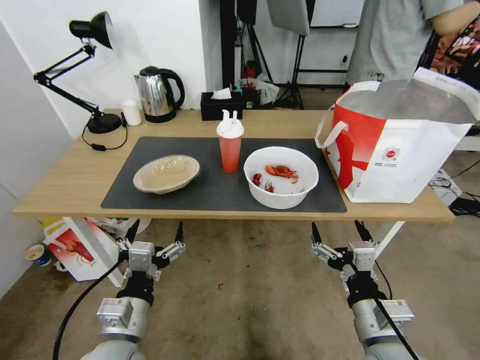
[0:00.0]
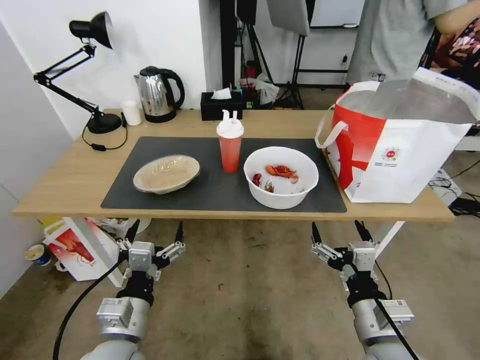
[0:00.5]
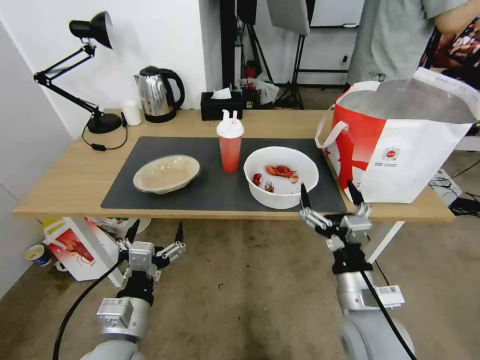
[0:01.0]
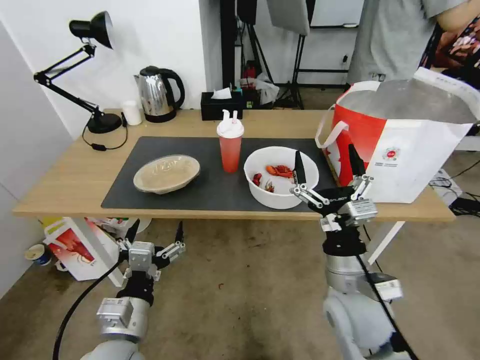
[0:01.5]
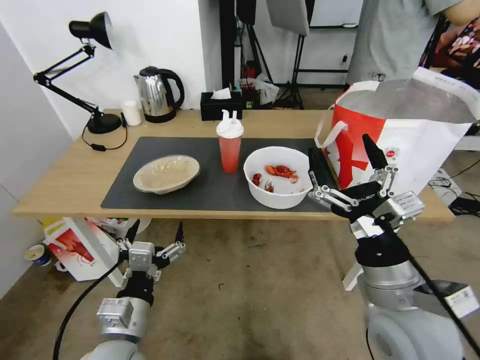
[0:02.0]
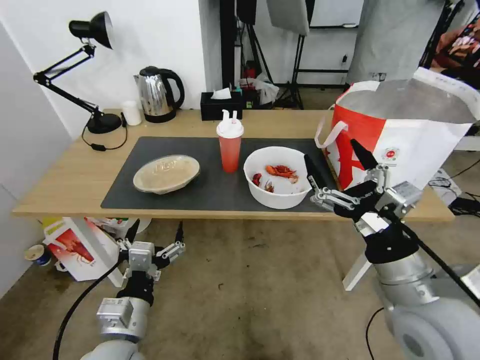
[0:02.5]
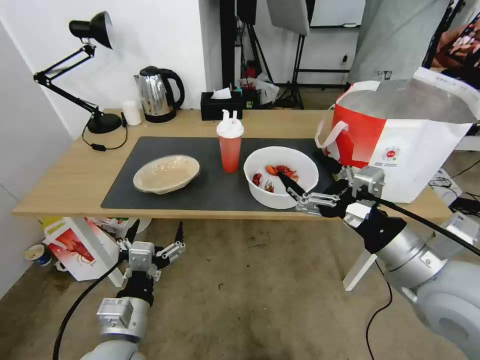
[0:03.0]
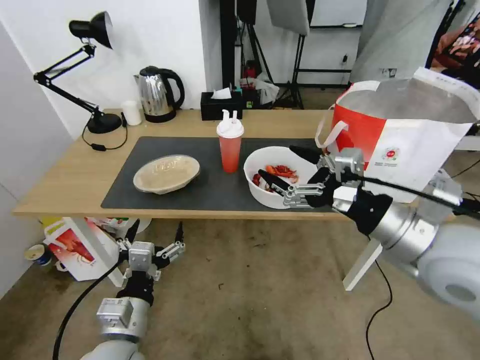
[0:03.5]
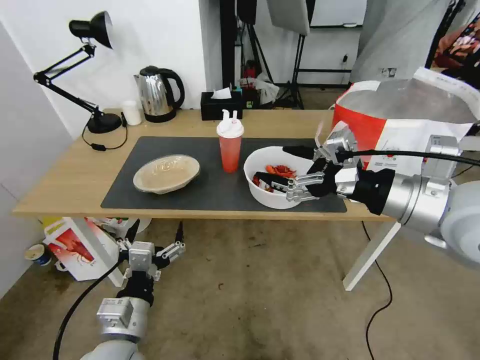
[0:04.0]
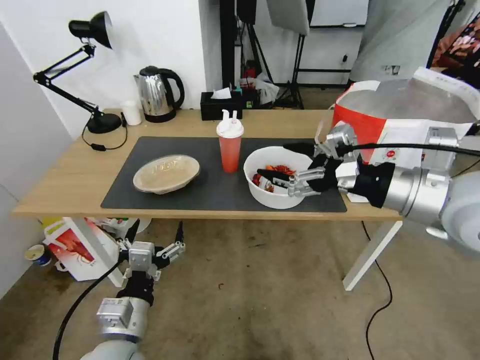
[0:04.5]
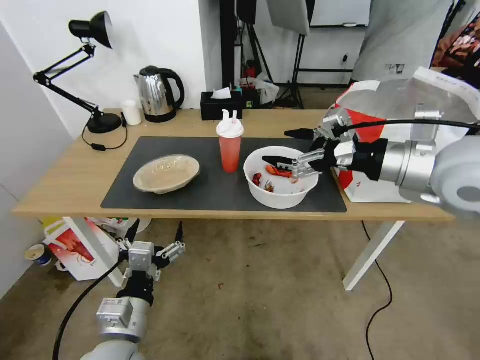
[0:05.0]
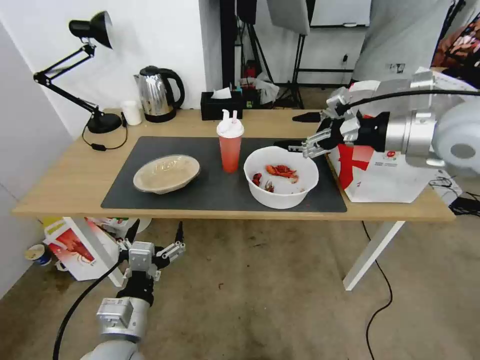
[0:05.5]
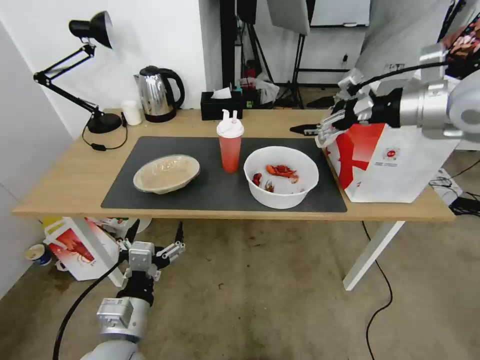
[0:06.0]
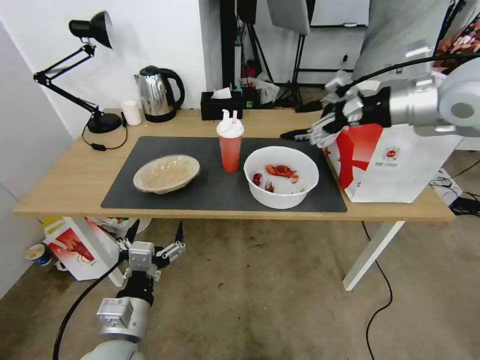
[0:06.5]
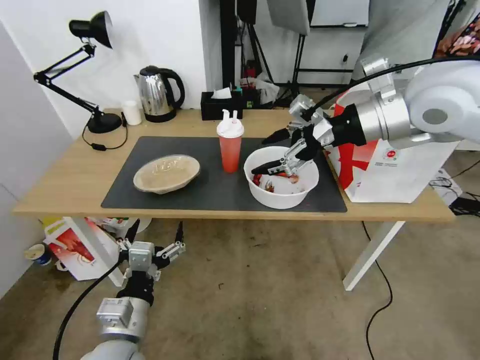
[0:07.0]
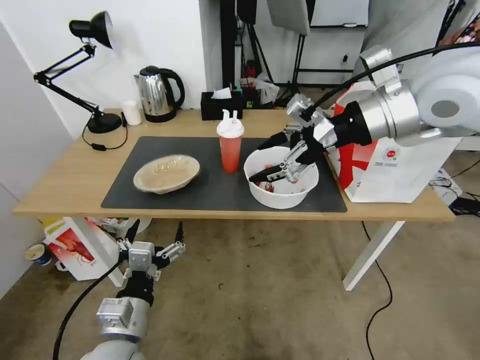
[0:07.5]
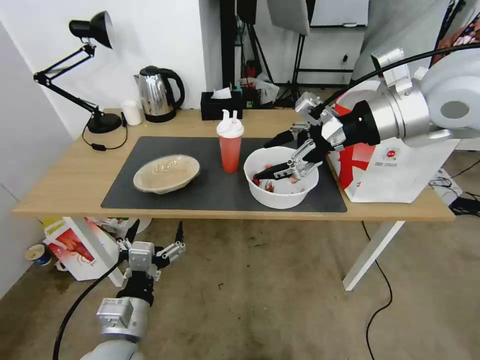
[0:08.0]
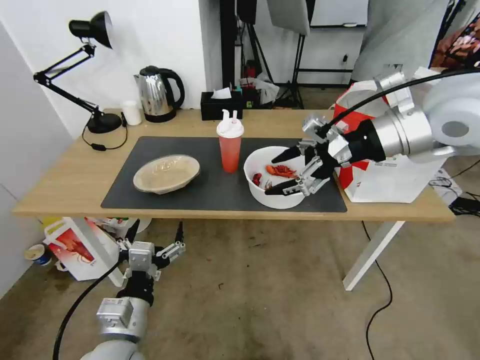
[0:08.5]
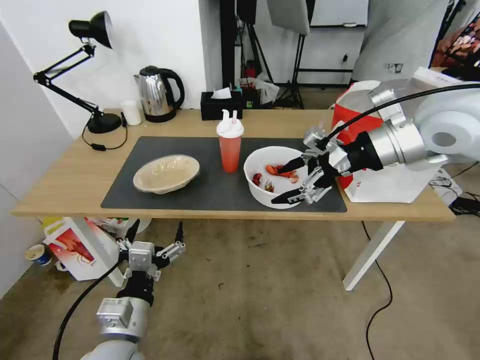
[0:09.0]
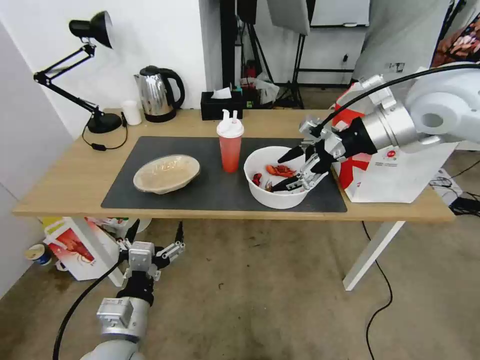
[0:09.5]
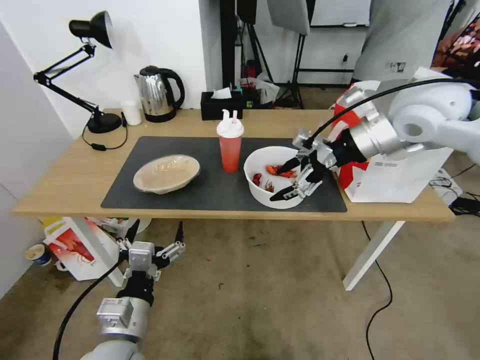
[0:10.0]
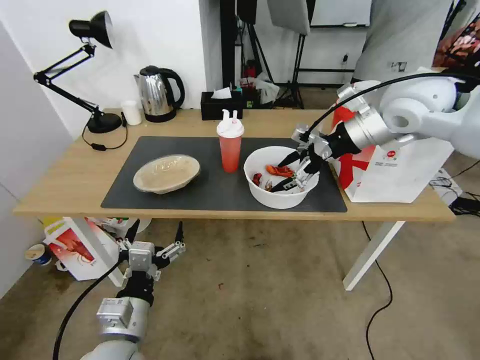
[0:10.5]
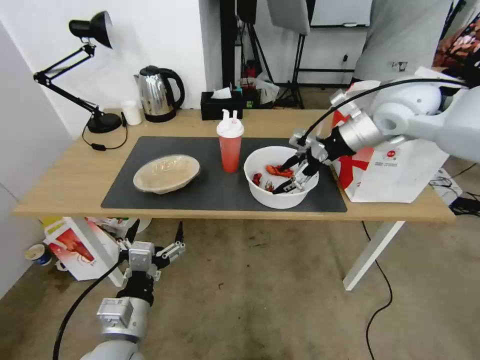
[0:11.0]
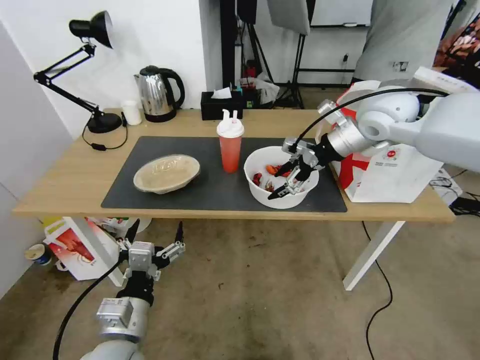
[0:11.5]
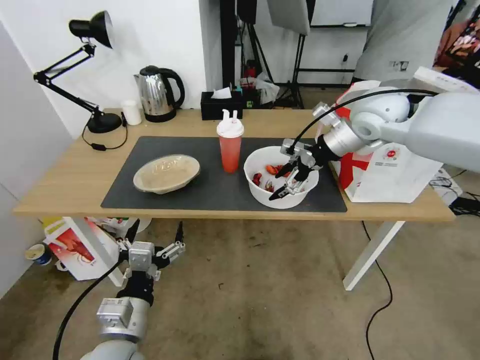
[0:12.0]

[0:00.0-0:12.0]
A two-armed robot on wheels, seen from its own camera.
Task of the whole recording: Pick up the trash from the table and place it into the takeout bag.
2.0 to 4.0 s: The right gripper travels upward and forward by about 15 cm.
4.0 to 6.0 s: The right gripper travels forward, upward and to the right by some 20 cm.
6.0 to 8.0 s: The right gripper moves to the left, approximately 10 cm.
8.0 to 10.0 s: The right gripper moves about 5 cm.
10.0 to 12.0 s: The right gripper shifts about 10 cm forward and downward.

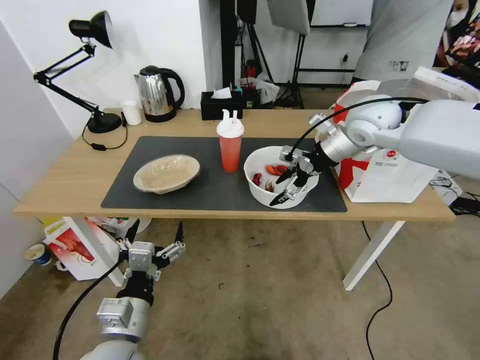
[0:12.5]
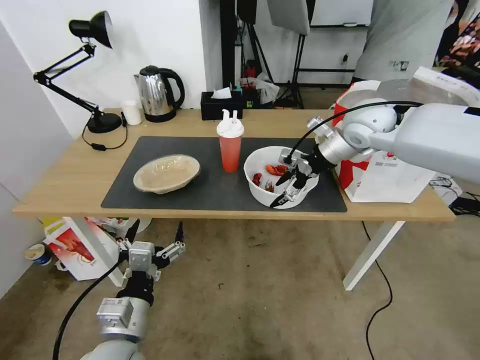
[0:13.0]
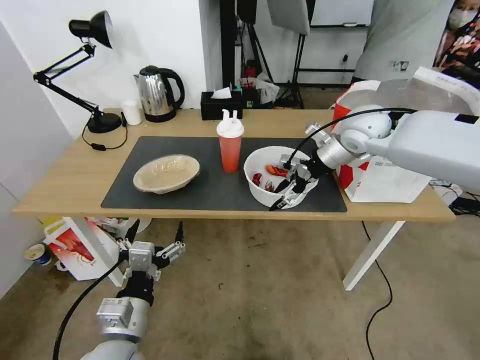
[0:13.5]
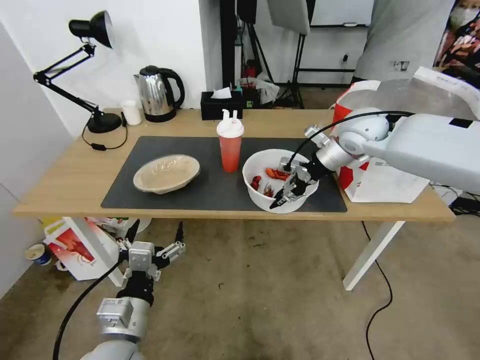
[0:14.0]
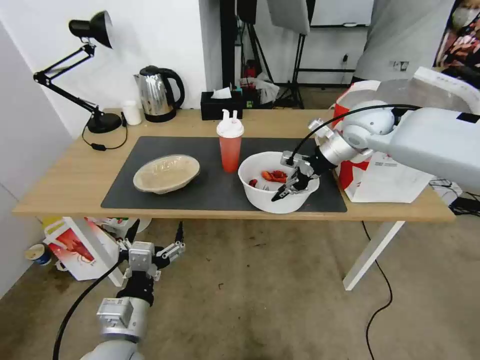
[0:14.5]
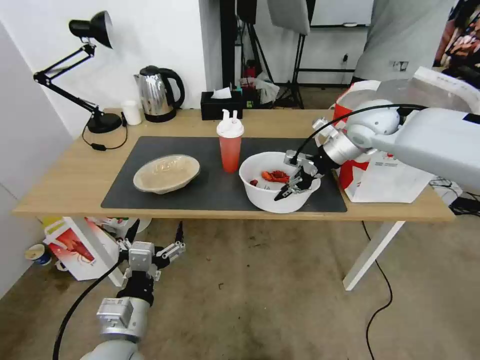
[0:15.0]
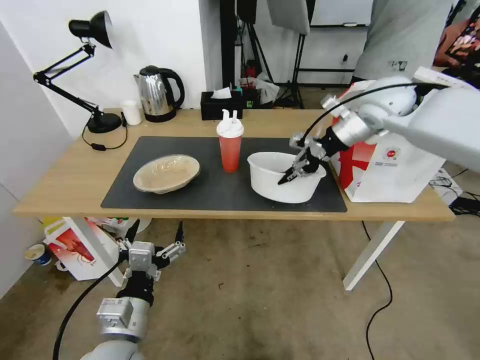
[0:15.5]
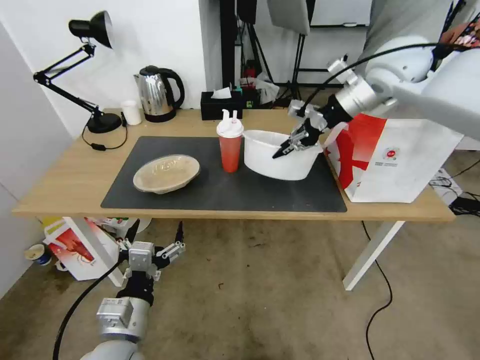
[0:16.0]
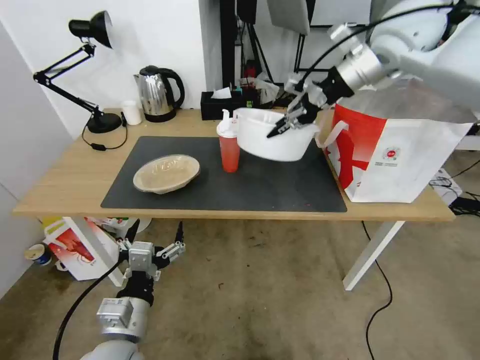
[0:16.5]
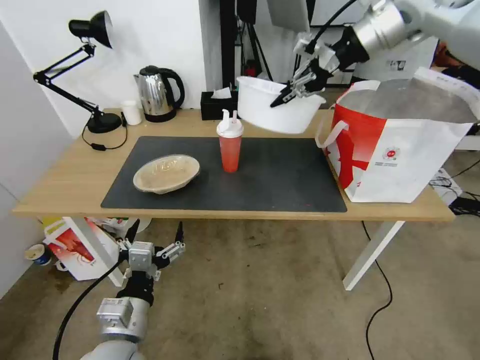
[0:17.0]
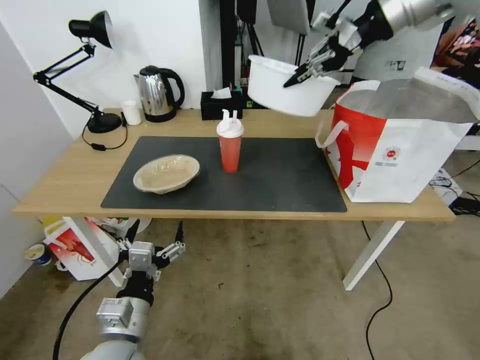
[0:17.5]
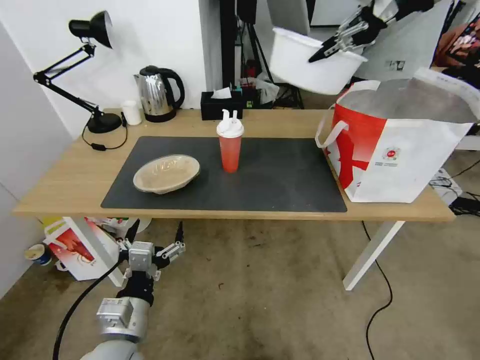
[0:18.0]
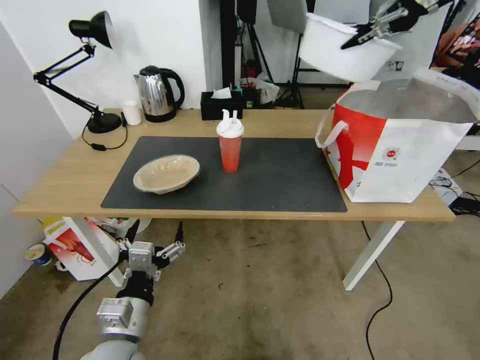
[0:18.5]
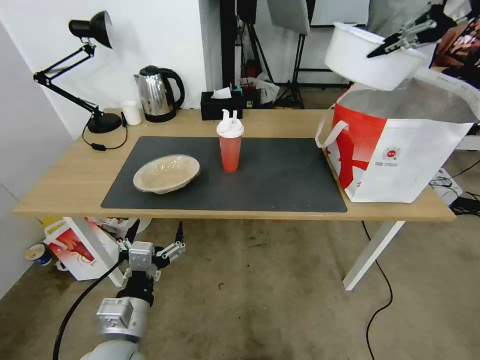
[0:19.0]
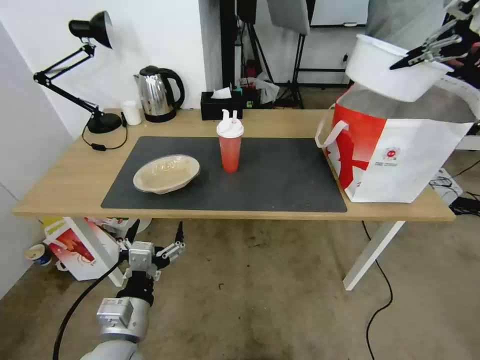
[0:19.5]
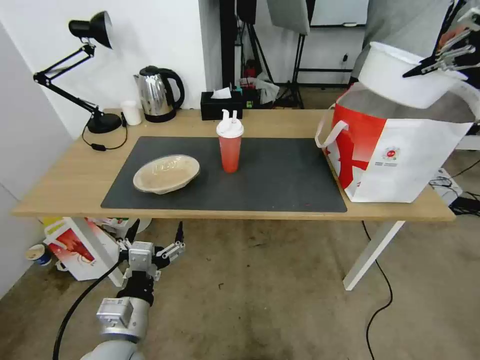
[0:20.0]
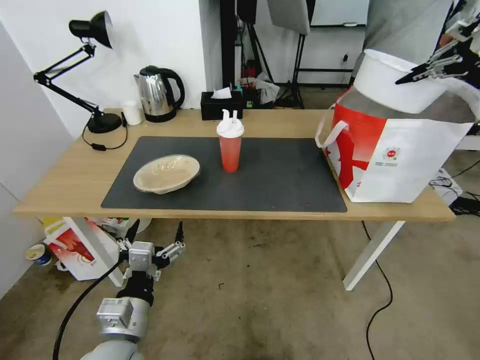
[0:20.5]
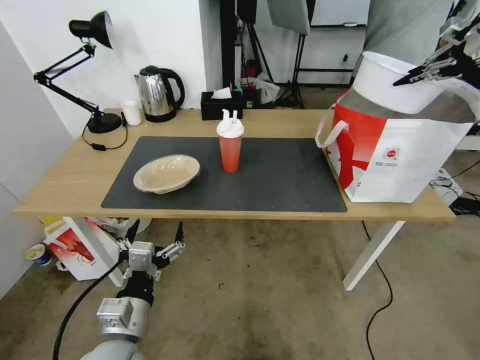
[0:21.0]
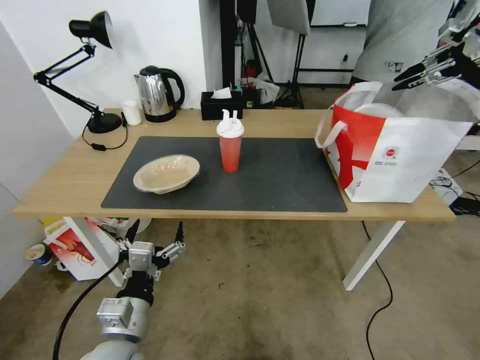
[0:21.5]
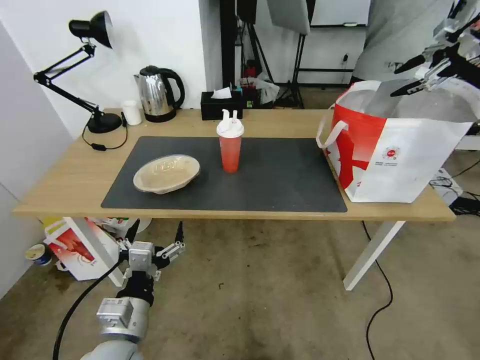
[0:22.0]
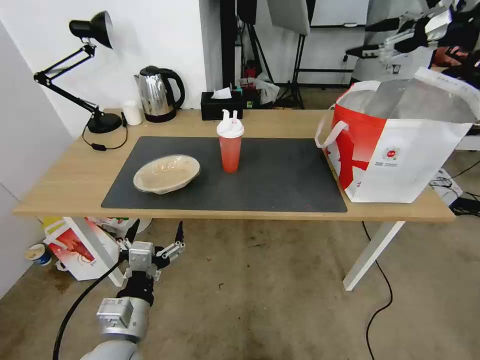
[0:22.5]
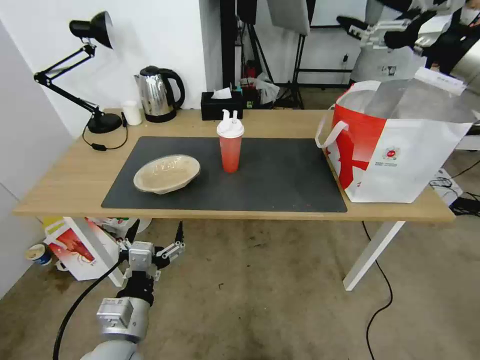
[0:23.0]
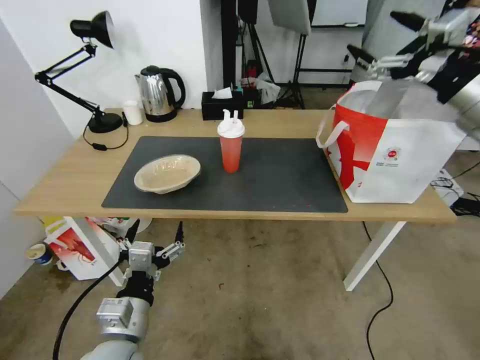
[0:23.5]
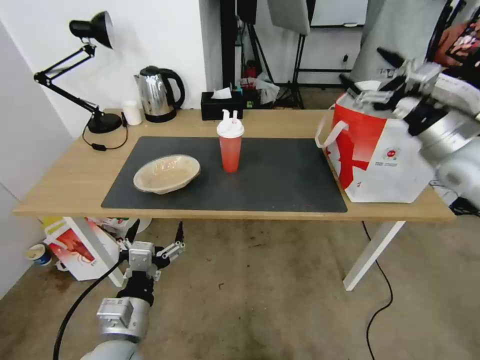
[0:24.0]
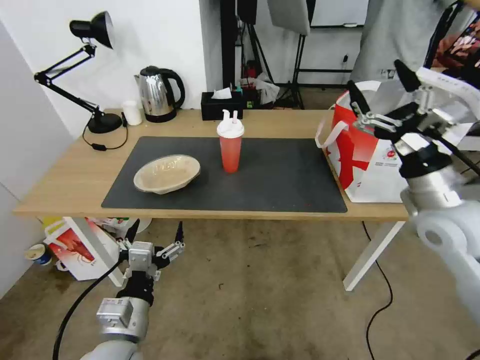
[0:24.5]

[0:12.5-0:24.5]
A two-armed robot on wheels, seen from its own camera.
Task of the whole recording: Pick up the trash from the table and place it into the takeout bag.
12.5 to 14.5 s: The right gripper closes.
14.5 to 16.5 s: The right gripper shifts about 15 cm upward.
16.5 to 18.5 s: The right gripper goes about 20 cm to the right and upward.
18.5 to 20.5 s: The right gripper travels to the right and downward by about 15 cm.
20.5 to 22.5 s: The right gripper travels to the left and backward by approximately 10 cm, and opens up.
22.5 to 24.5 s: The right gripper heads downward, backward and to the left, covering approximately 30 cm.

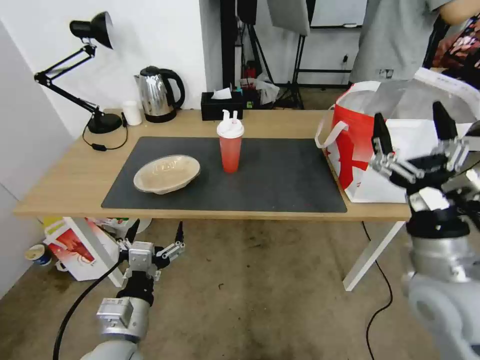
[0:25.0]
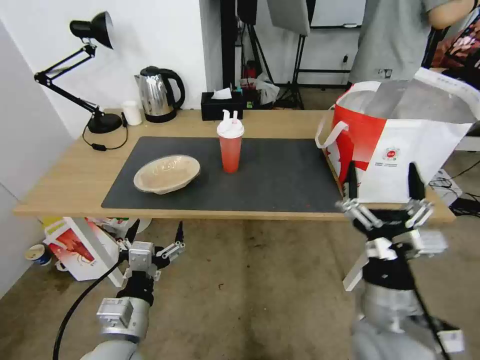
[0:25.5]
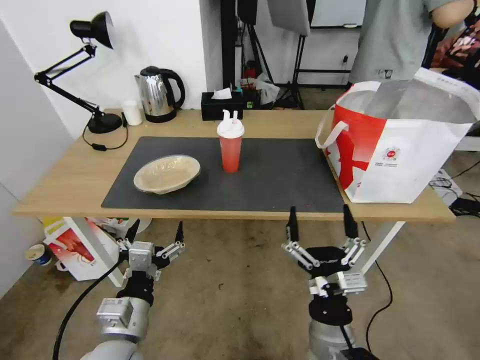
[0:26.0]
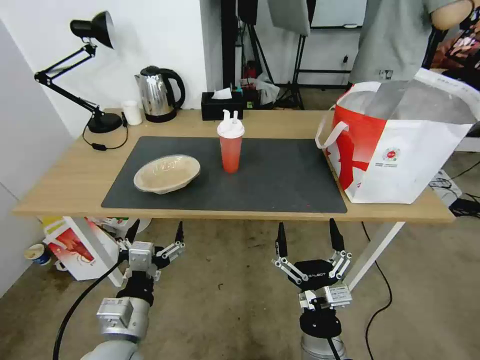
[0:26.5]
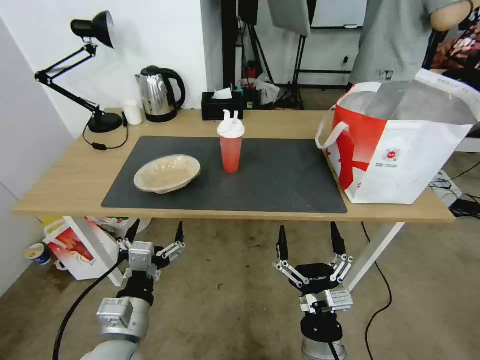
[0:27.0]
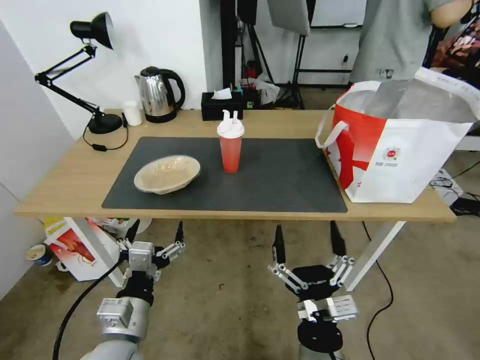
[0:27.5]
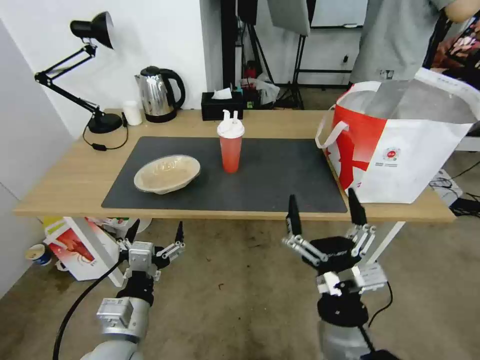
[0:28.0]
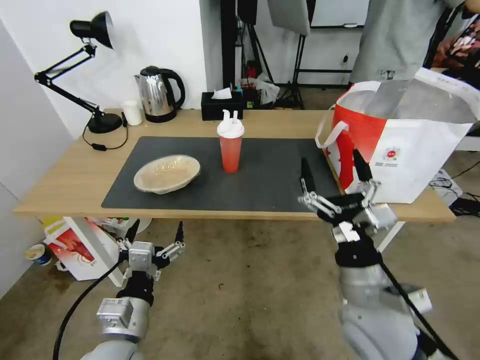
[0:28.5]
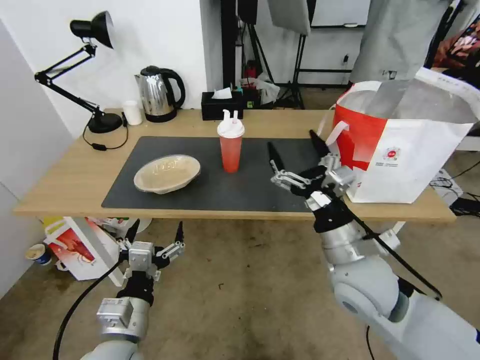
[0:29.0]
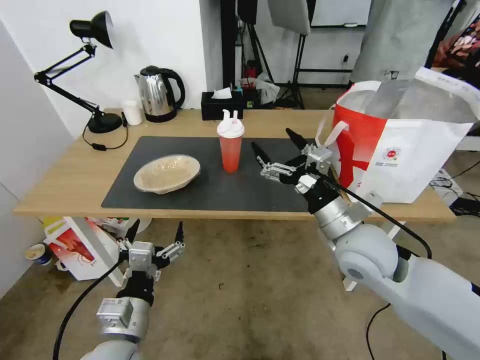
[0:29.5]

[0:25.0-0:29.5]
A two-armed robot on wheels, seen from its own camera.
Task of the whole recording: Pick up the trash from the table and place it into the takeout bag.
25.0 to 27.0 s: The right gripper goes some 25 cm downward, to the left and backward.
27.0 to 29.5 s: The right gripper travels forward, upward and to the right by about 25 cm.
